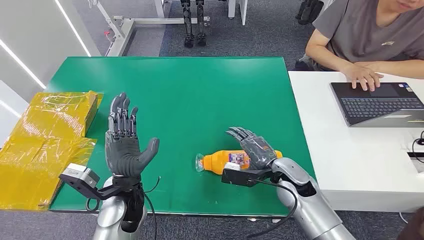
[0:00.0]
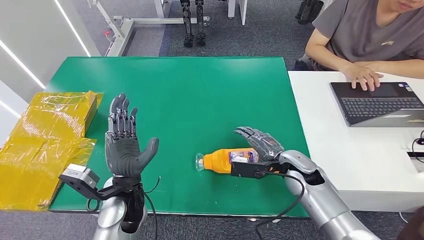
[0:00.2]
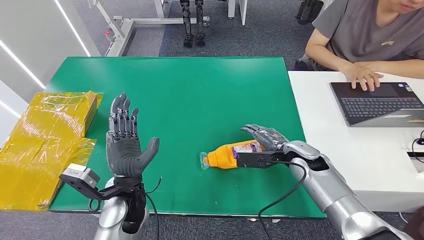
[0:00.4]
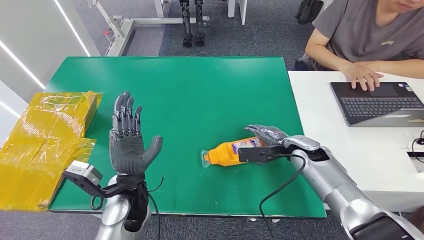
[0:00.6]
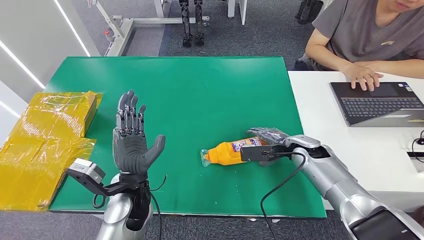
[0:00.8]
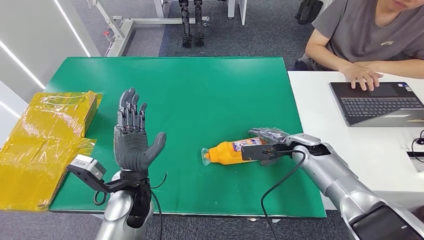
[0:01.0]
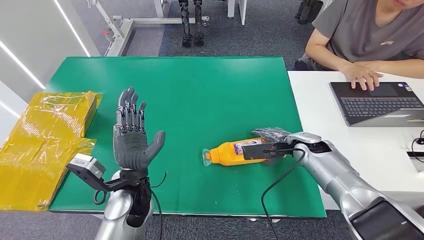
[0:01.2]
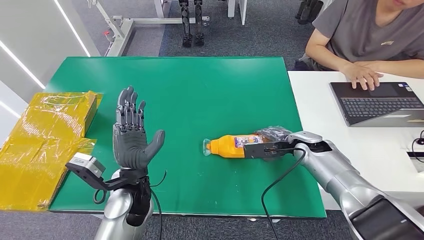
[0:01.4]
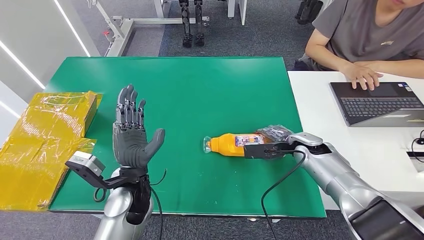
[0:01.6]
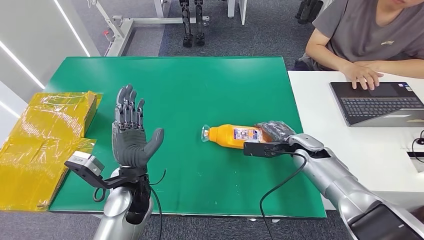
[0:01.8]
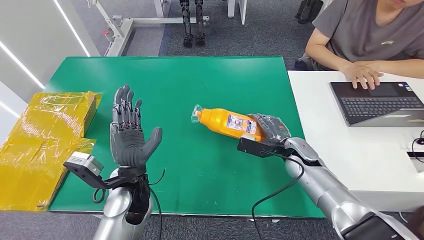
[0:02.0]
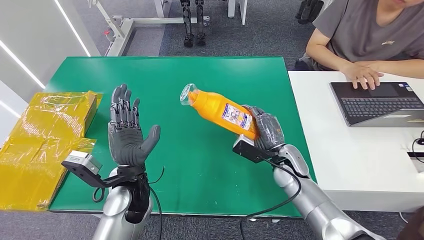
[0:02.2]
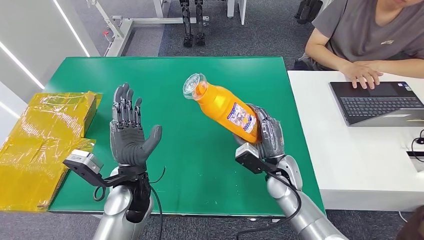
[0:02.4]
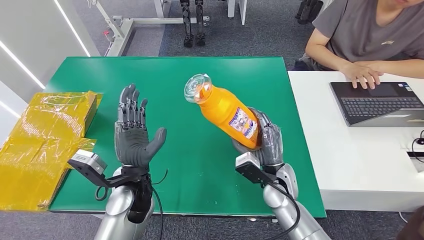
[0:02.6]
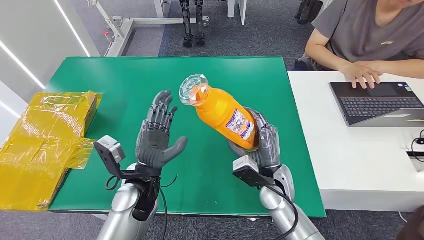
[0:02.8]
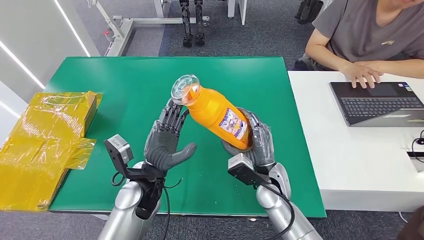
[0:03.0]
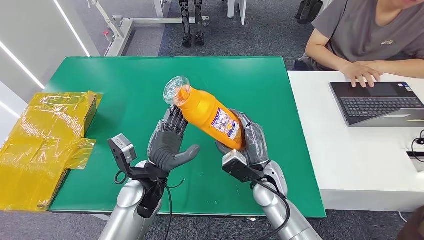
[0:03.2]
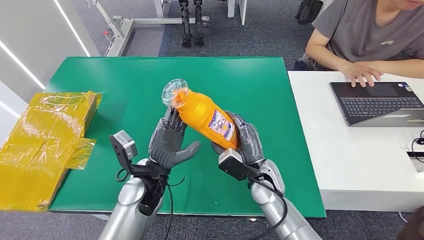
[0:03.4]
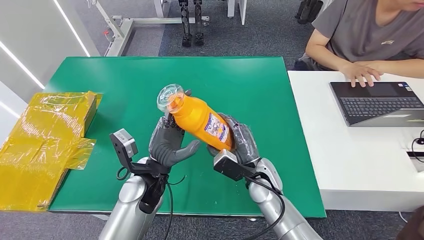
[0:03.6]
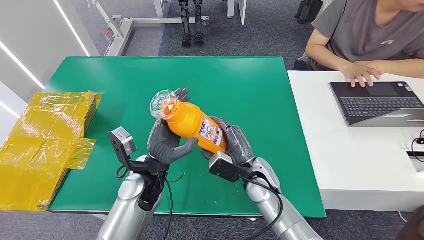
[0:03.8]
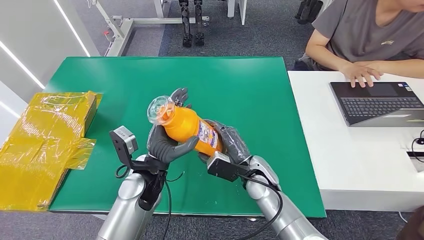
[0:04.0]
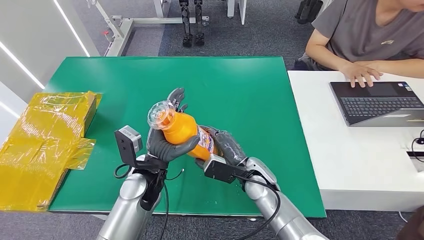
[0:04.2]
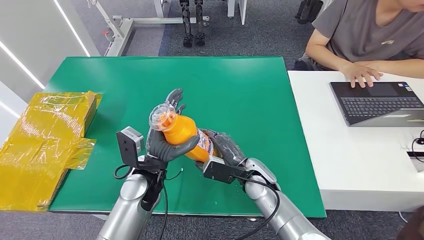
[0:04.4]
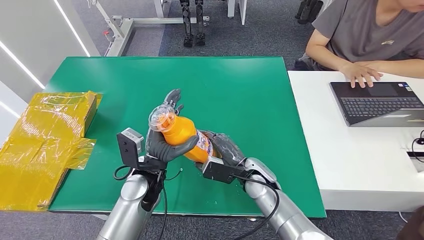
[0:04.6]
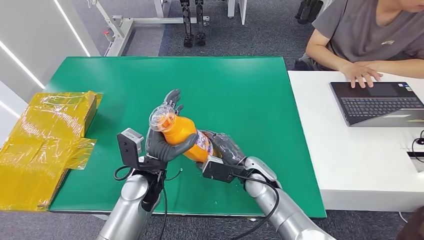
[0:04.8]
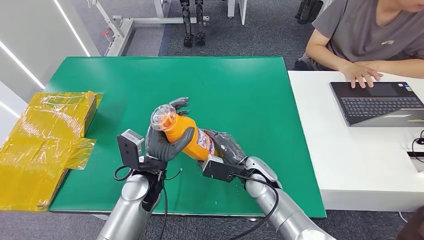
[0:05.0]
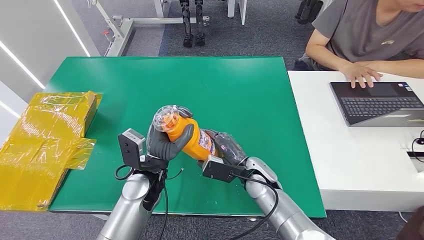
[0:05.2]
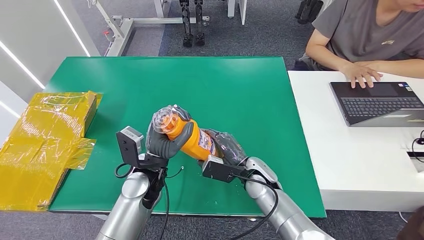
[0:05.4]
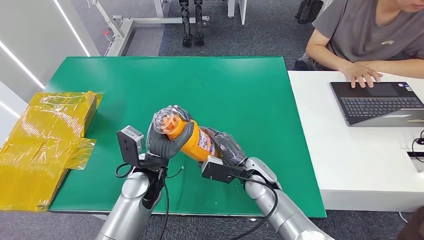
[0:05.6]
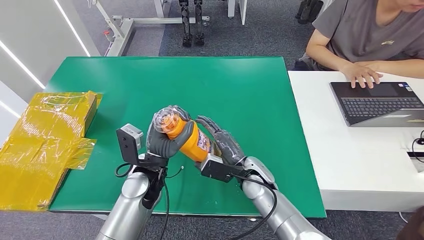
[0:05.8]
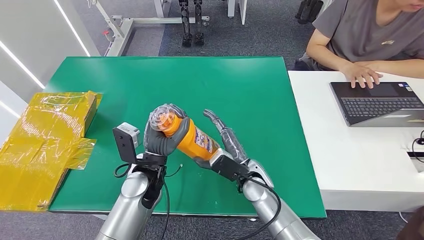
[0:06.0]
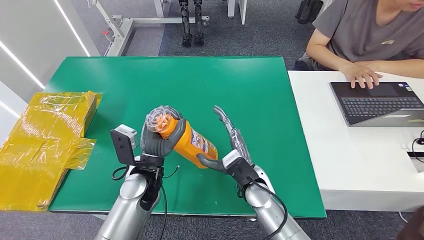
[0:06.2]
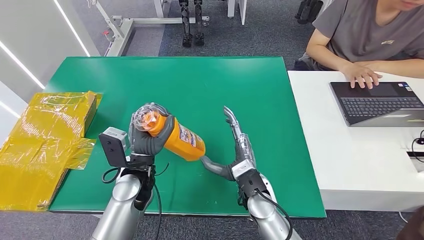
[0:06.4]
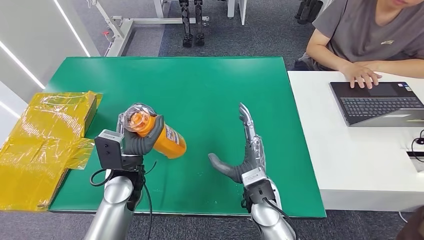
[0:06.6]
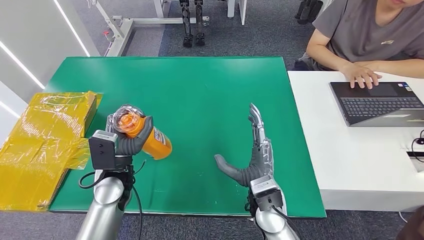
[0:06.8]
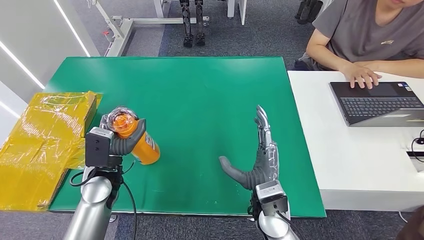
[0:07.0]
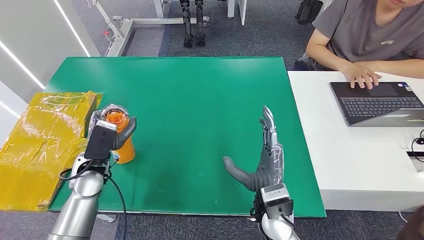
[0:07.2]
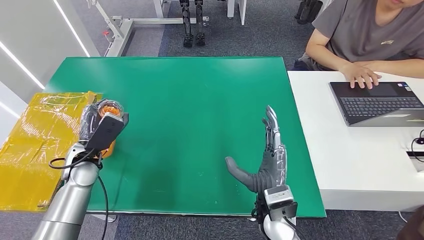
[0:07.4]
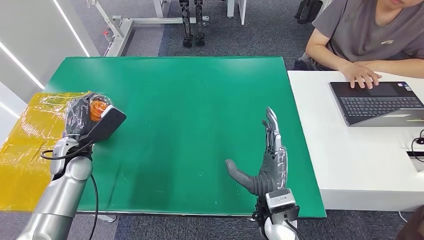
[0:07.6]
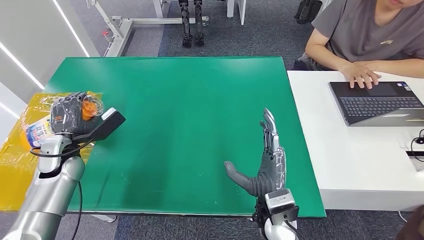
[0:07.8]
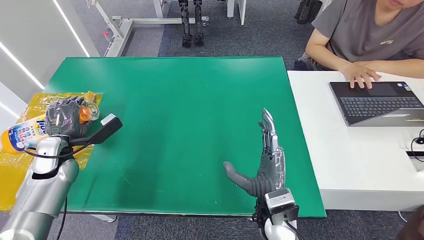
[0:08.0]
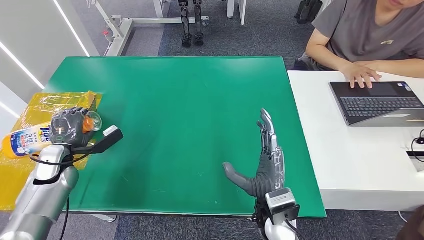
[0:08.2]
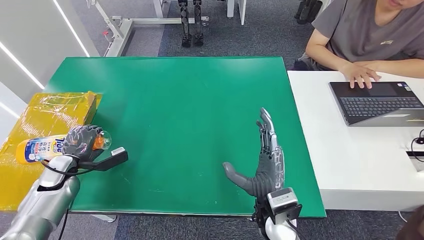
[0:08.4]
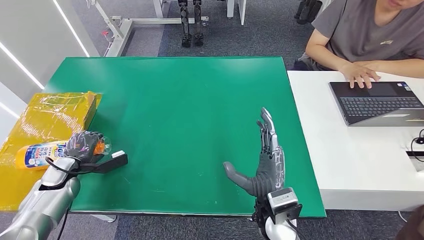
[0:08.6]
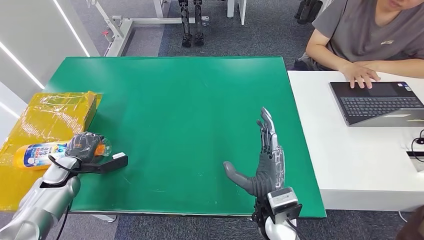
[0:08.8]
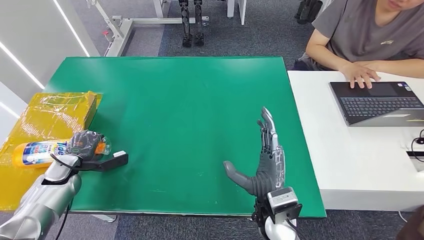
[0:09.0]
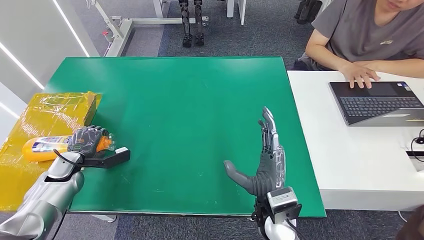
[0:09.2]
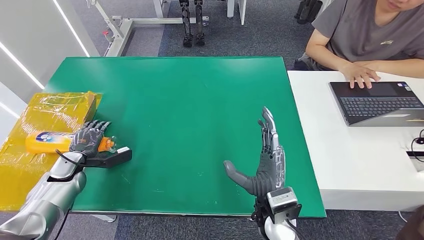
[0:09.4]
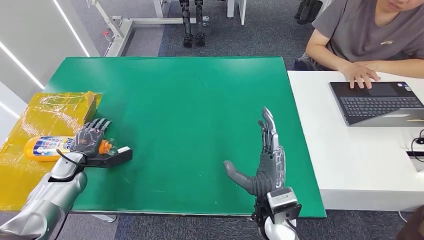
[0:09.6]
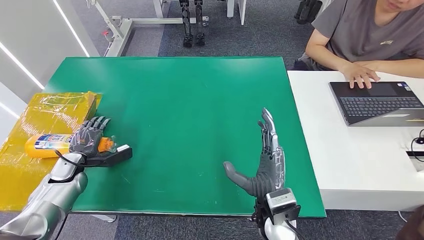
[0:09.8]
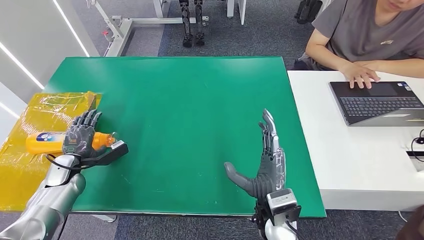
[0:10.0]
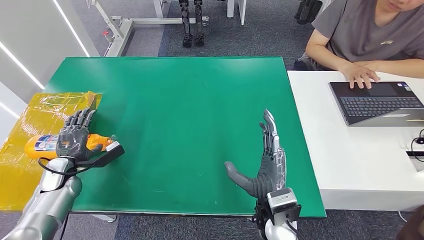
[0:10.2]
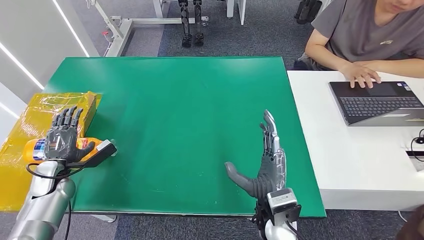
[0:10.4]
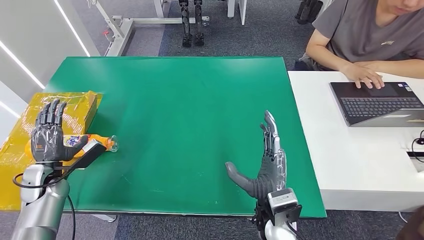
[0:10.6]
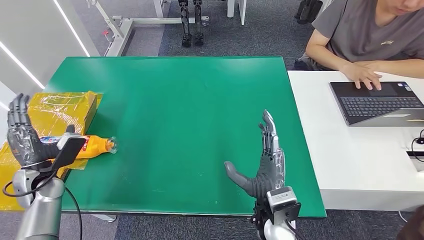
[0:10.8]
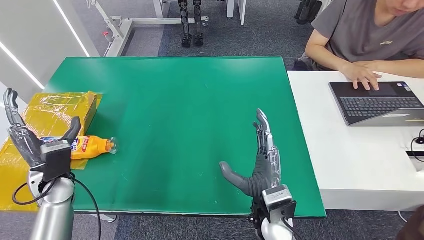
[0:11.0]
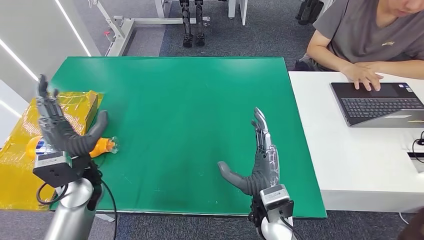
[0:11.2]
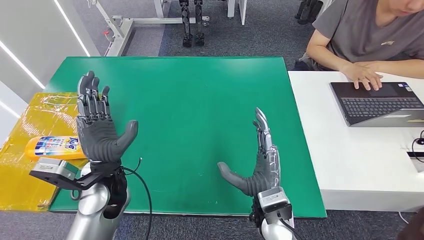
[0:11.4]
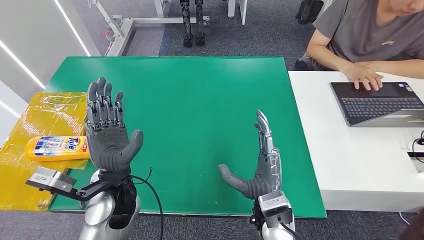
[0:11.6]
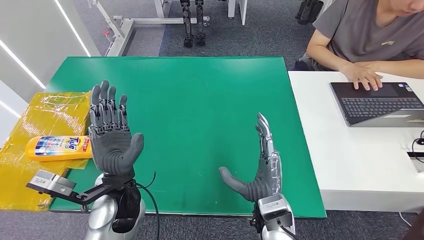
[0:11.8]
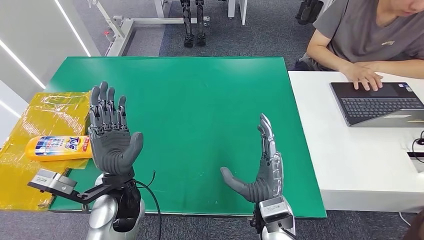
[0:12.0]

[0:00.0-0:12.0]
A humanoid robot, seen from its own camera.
Step, 0:00.0 to 0:04.2: Pick up the bottle from the table.
Step, 0:04.6 to 0:12.0: Turn the bottle to the front side.
0:01.6 to 0:03.0: The right hand travels to the left and backward by about 15 cm.
0:04.4 to 0:06.0: The hands move only a little.
0:06.0 to 0:07.6: The right hand travels backward by some 10 cm; the left hand moves to the left, about 20 cm.
0:07.6 to 0:09.0: The left hand is displaced to the left and downward by about 15 cm.
0:10.4 to 0:12.0: The left hand travels to the right and upward by approximately 30 cm.

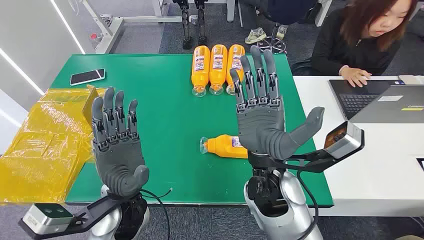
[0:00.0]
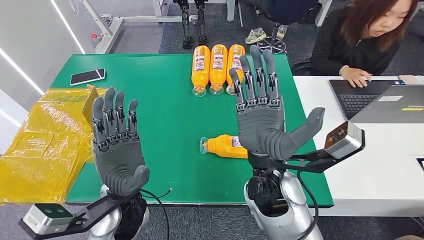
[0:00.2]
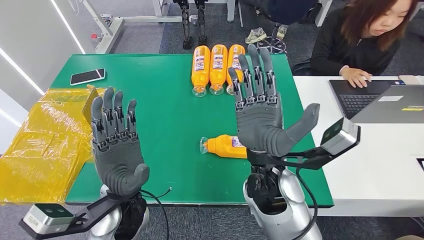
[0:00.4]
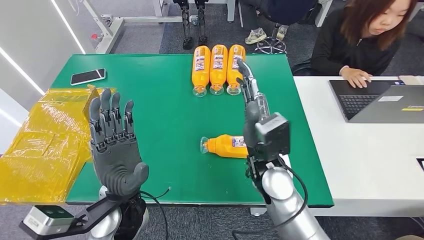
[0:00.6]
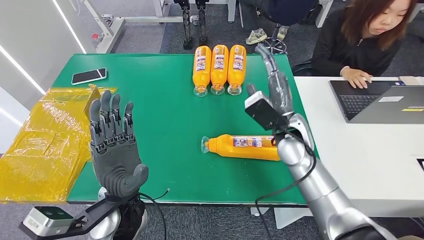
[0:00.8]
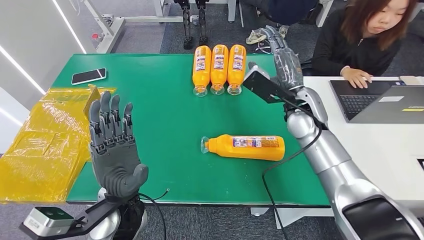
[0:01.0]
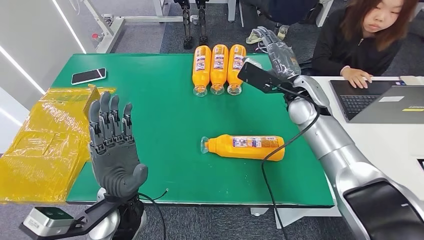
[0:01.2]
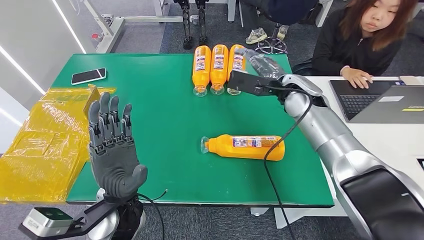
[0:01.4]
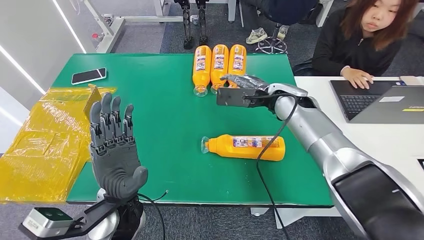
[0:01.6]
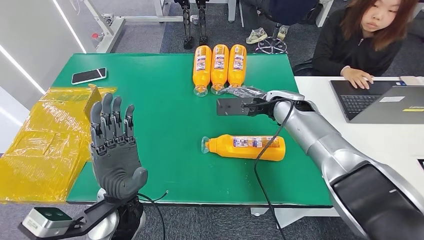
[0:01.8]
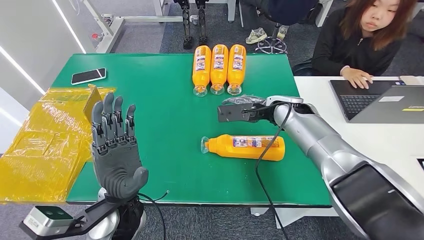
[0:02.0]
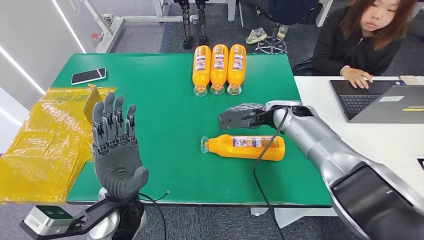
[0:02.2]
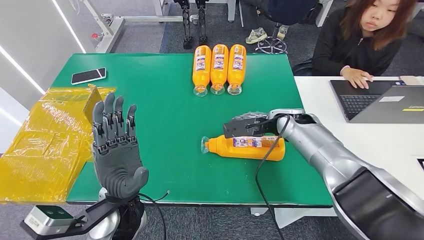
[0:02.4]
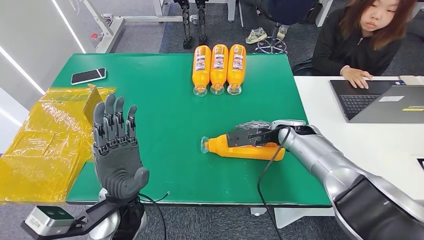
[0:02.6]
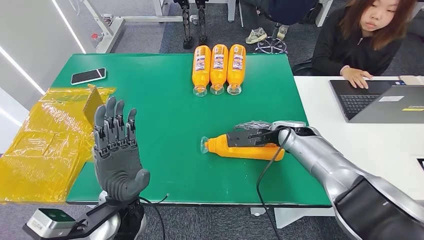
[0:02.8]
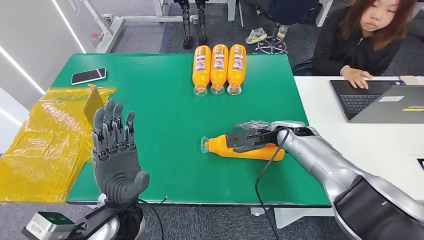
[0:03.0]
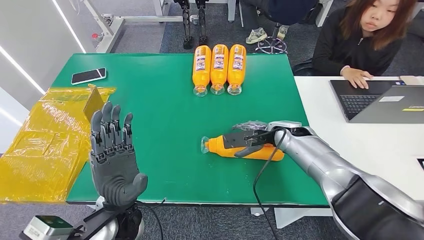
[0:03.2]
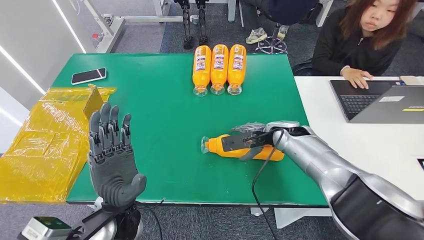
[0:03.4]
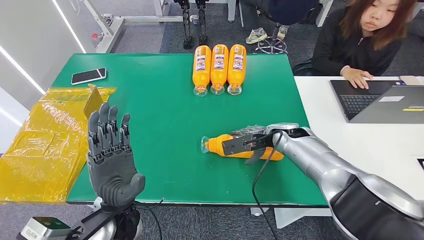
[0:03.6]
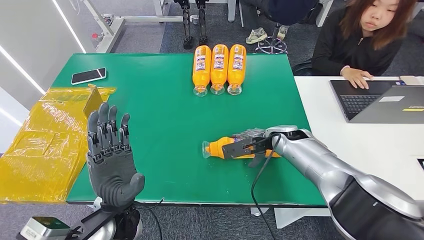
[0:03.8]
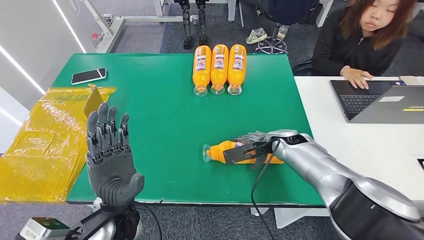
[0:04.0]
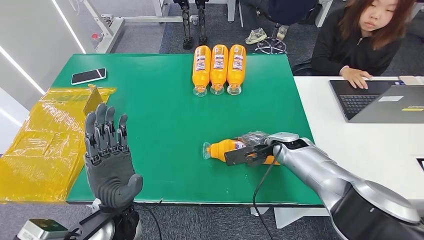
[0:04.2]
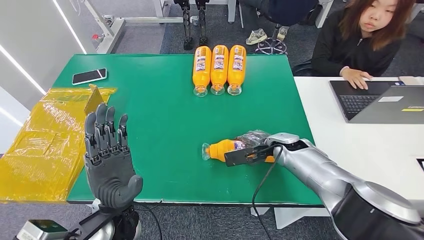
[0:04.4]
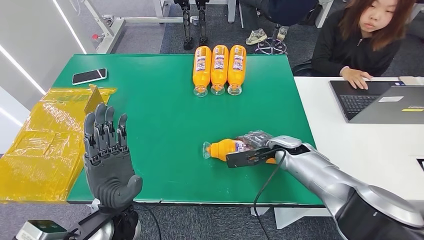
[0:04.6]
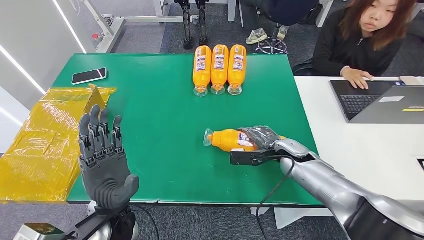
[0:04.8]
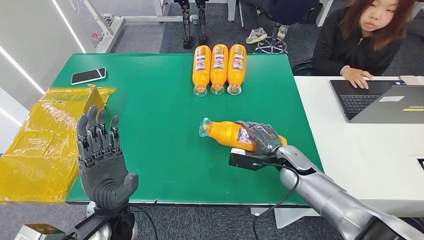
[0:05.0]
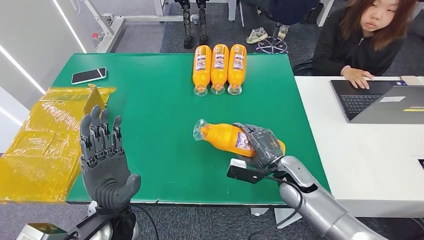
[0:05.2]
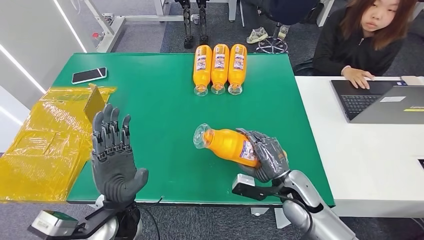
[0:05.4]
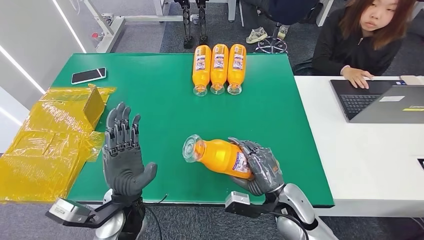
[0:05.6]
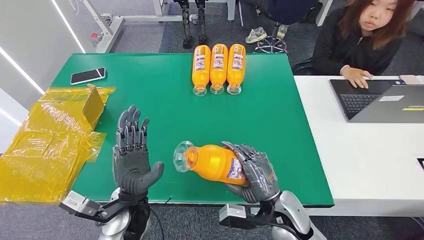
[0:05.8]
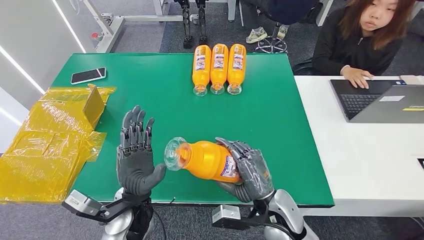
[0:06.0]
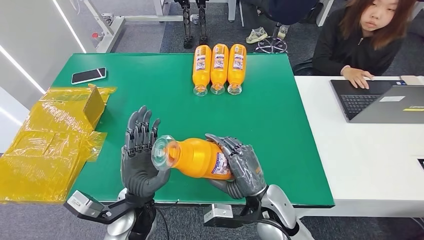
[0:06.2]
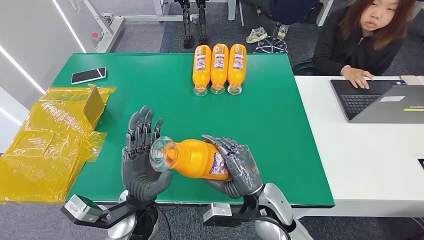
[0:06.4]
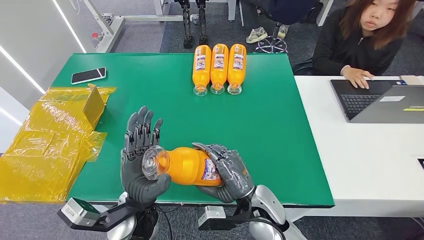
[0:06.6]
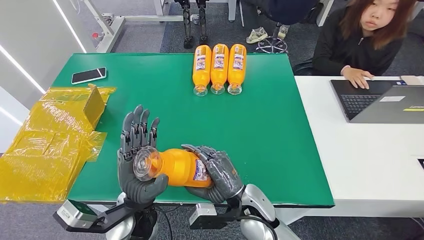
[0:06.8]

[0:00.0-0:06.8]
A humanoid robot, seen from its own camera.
Step, 0:00.0 to 0:05.4: Pick up the bottle from the table.
0:01.4 to 0:02.8: The right hand travels downward by about 10 cm.
0:02.8 to 0:04.0: There are only small adjustments of the hands.
0:04.0 to 0:05.4: The right hand travels backward by some 15 cm.
0:05.4 to 0:06.8: The right hand shifts approximately 15 cm to the left.
